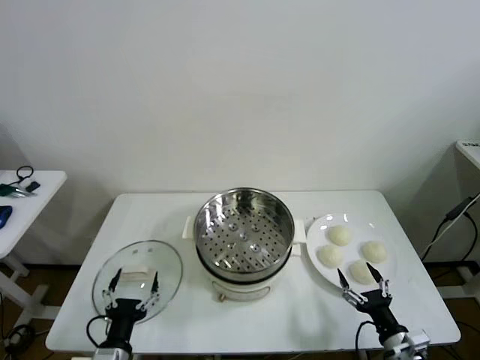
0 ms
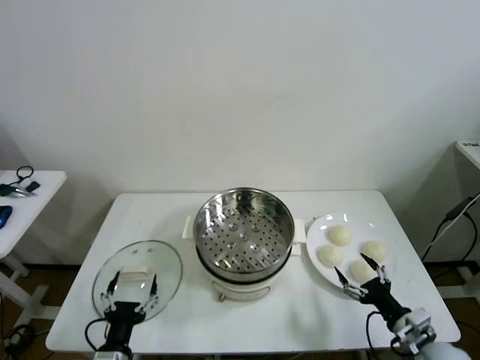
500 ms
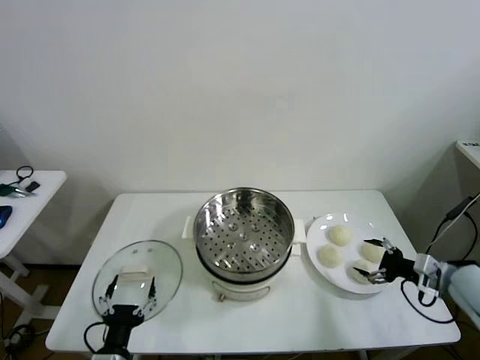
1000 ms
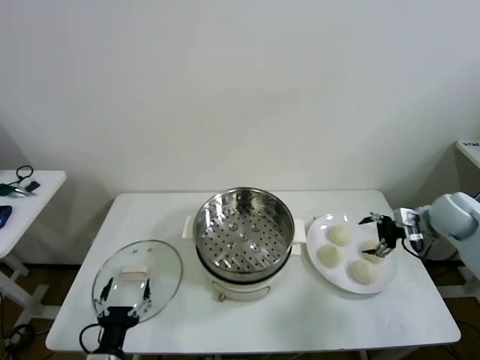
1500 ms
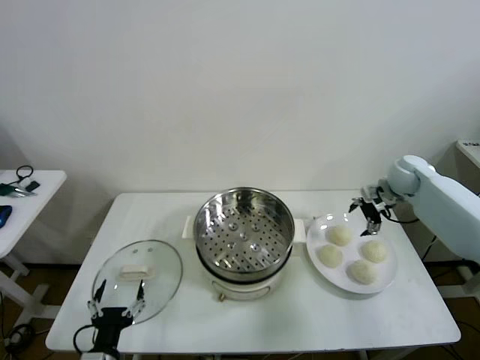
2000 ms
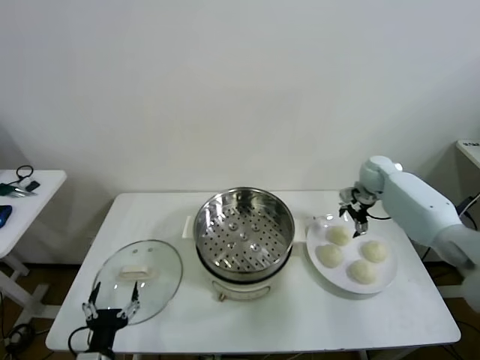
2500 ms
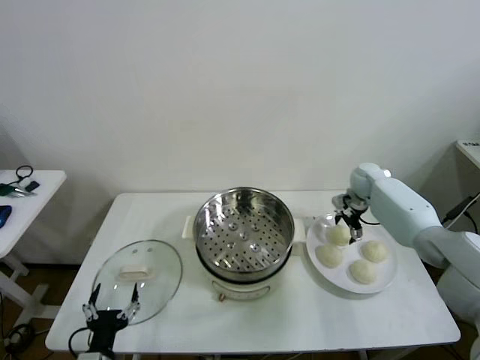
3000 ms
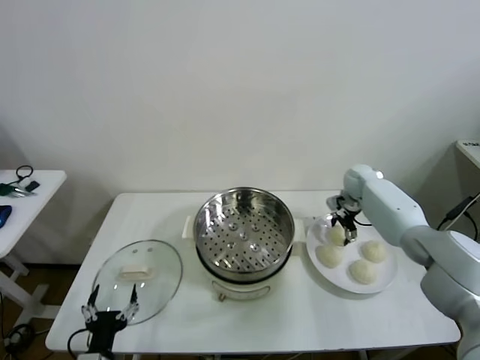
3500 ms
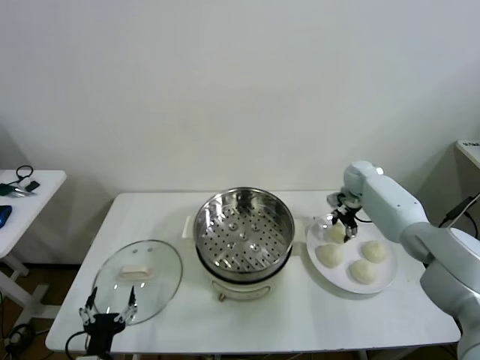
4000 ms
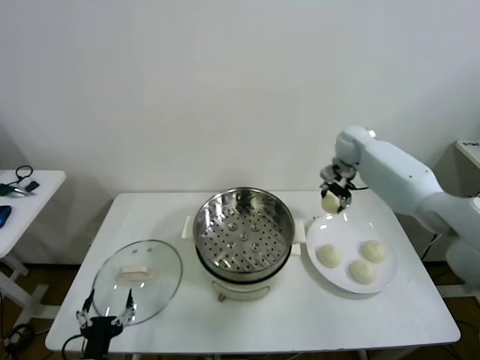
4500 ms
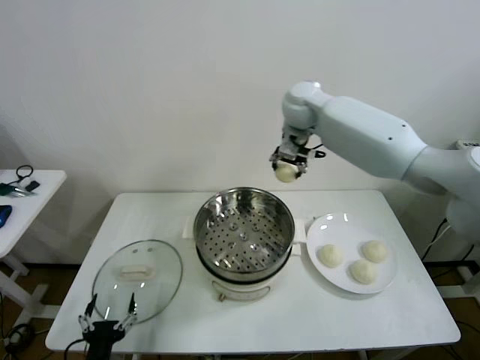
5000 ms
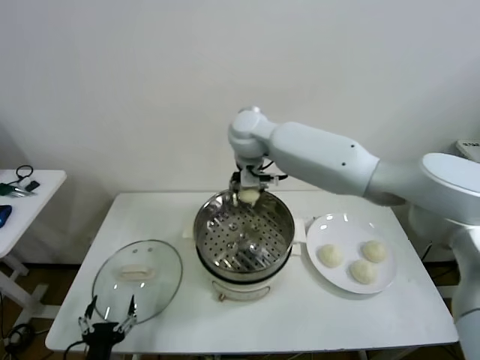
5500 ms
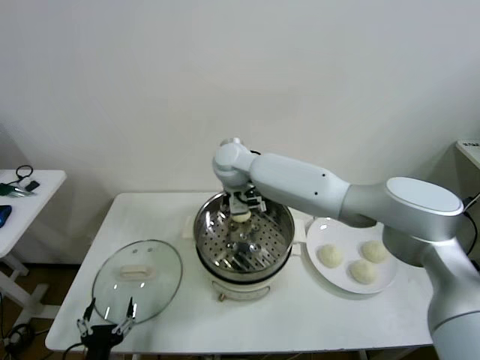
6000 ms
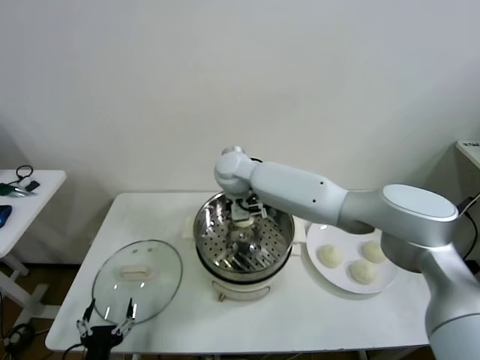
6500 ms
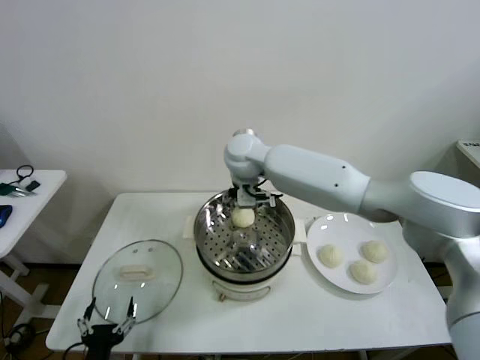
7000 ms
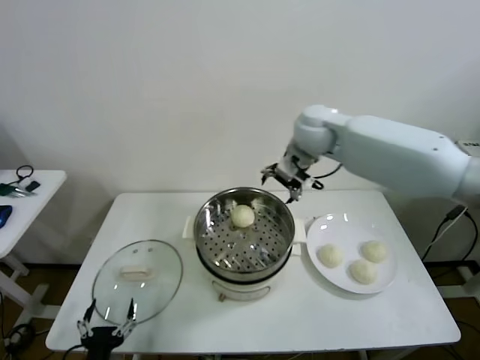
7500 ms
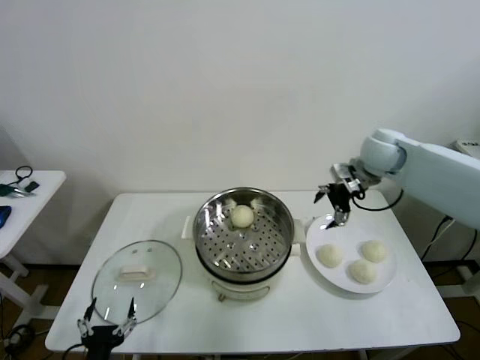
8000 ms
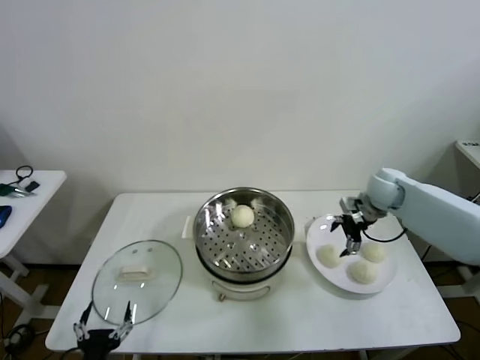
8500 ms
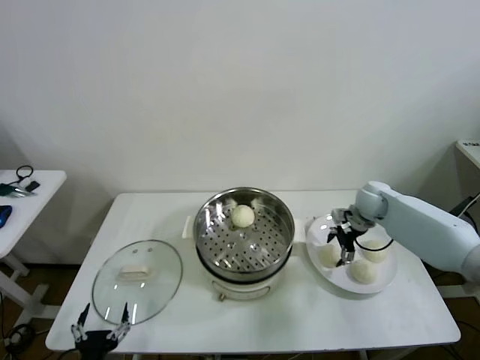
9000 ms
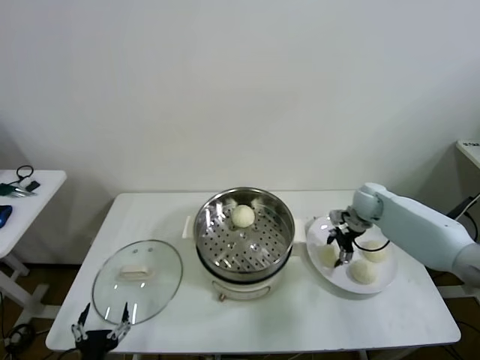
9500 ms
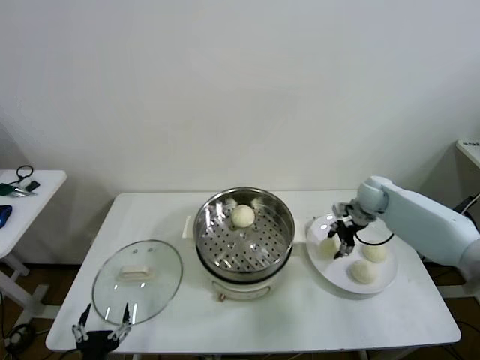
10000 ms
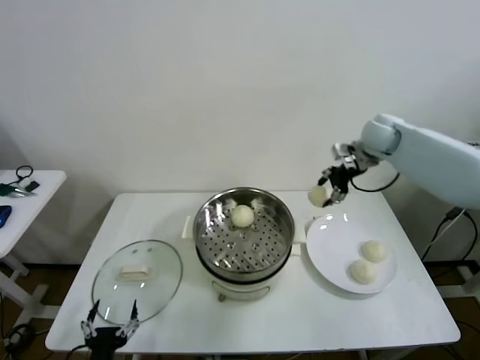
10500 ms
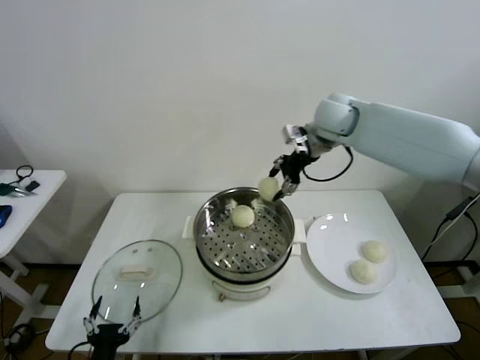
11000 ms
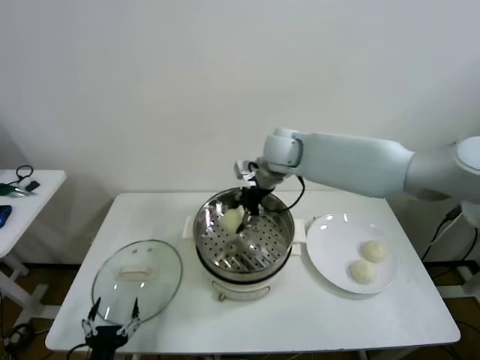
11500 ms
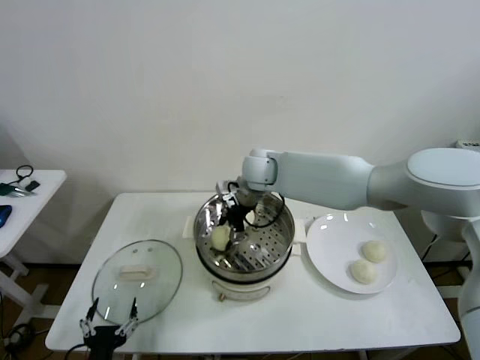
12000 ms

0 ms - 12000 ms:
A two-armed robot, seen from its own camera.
Task of the whole recording: take steamed baozi put them in steamer then cover it.
Step, 0 ms - 3500 ms: Grasp the baozi in the plate with right gripper.
Step, 4000 ms - 6500 ms: Place the baozi on the steamer with right gripper.
Step, 7000 ms - 9000 ms: Grasp the baozi in the plate with right gripper.
2000 ms - 4000 ms: The right gripper moves to the left, forward and downward, roughly 10 cm, and closes up.
4000 ms - 6000 ms: The right gripper moves to the left, roughly 35 cm.
6000 ms - 8000 ms: The right gripper is displaced to the right by about 35 cm, and opens.
8000 ms - 10000 ms: The right gripper is displaced downward by approximately 10 cm, and closes up.
10000 ms - 12000 ms: The right gripper moves to the left, roughly 30 cm, and opens.

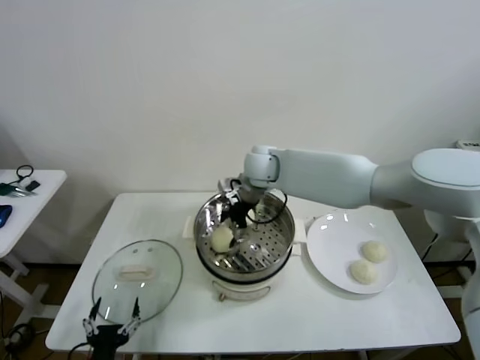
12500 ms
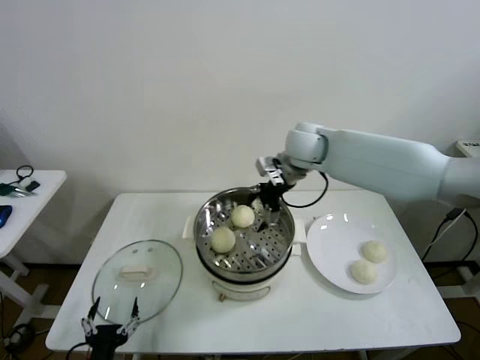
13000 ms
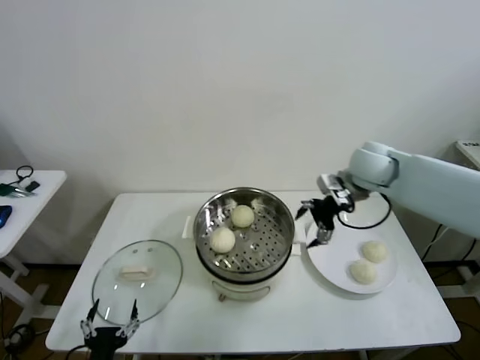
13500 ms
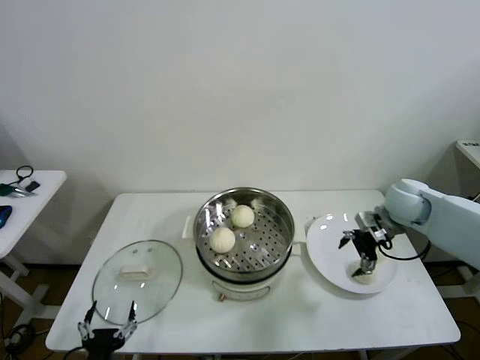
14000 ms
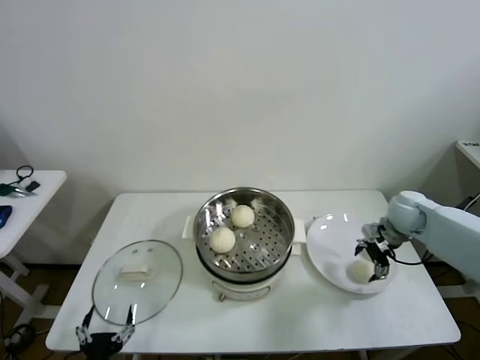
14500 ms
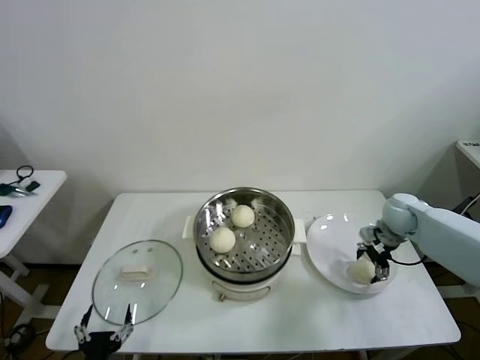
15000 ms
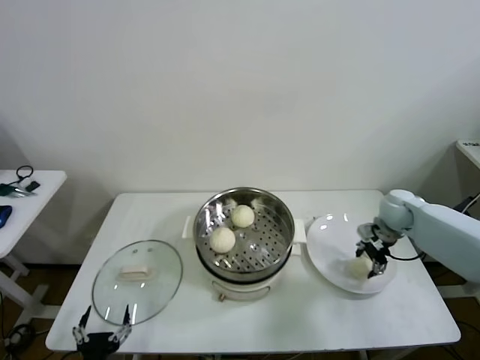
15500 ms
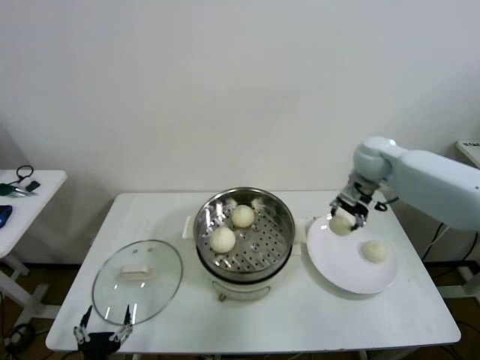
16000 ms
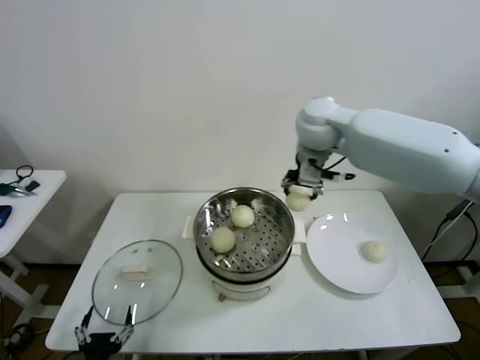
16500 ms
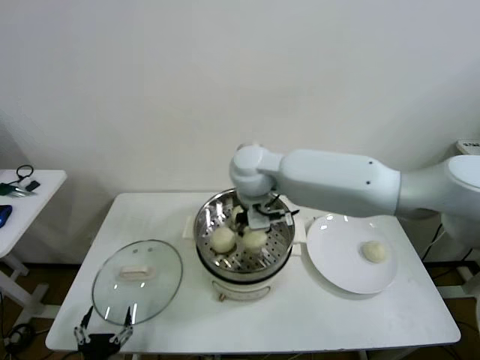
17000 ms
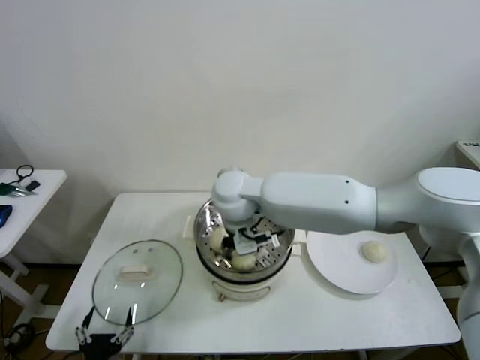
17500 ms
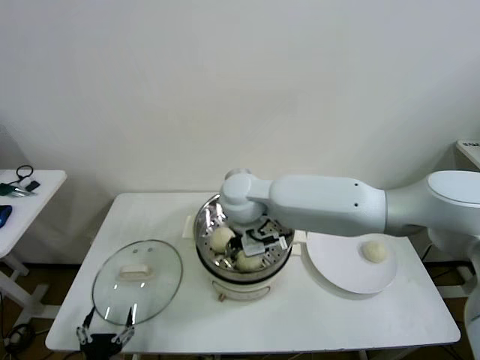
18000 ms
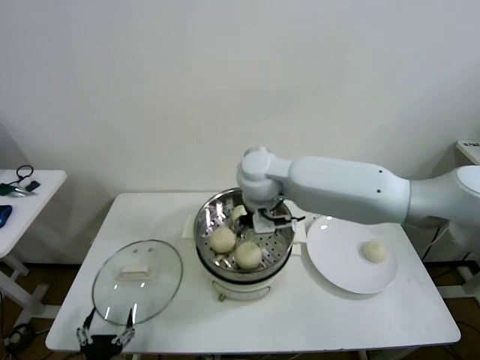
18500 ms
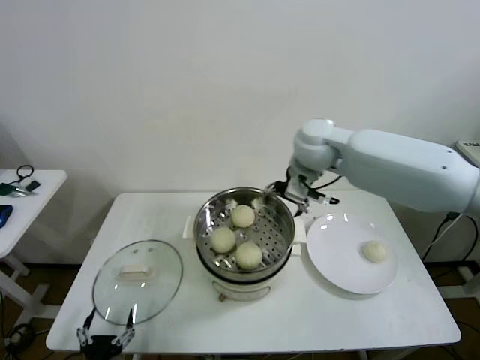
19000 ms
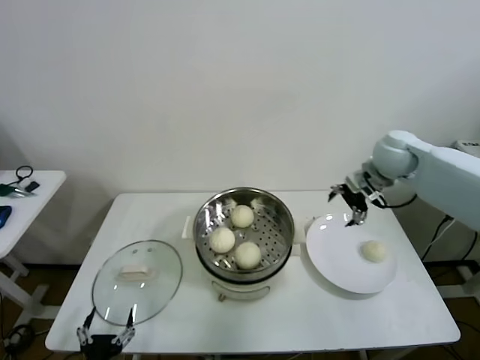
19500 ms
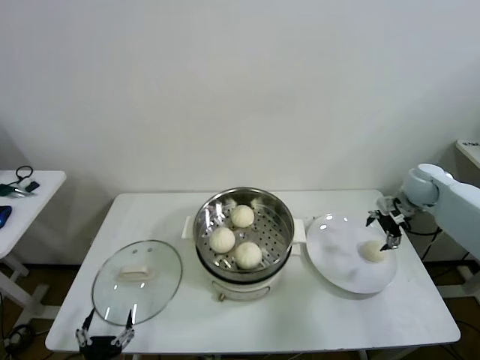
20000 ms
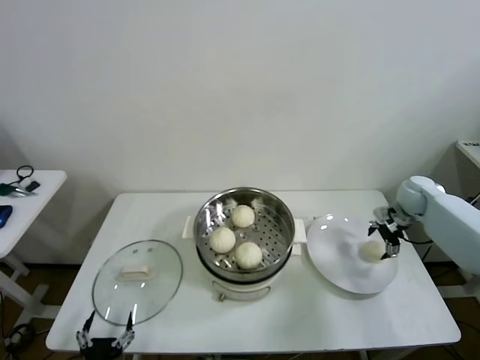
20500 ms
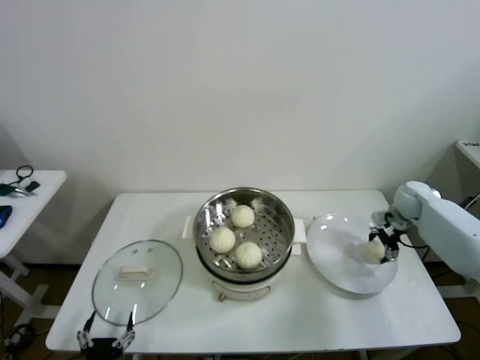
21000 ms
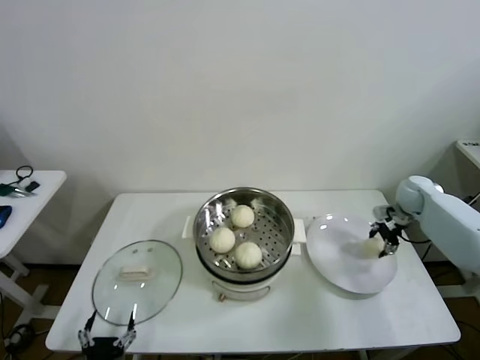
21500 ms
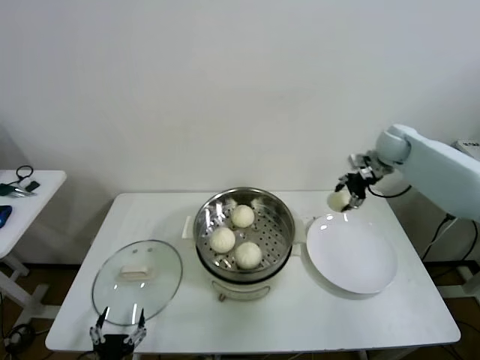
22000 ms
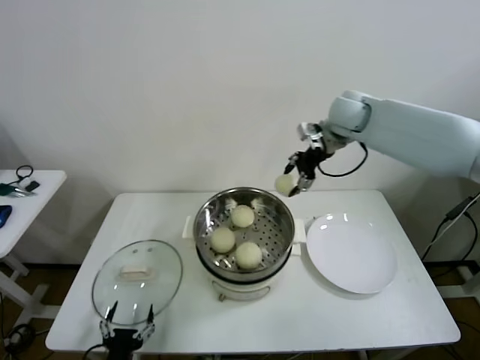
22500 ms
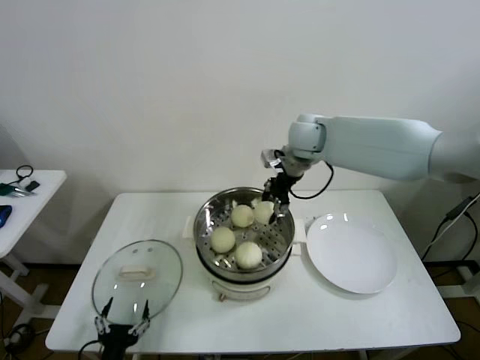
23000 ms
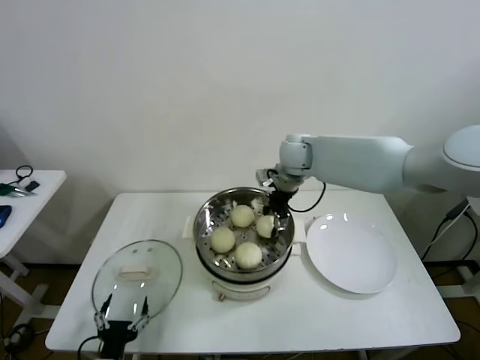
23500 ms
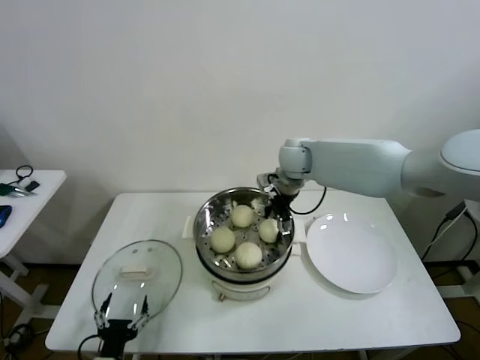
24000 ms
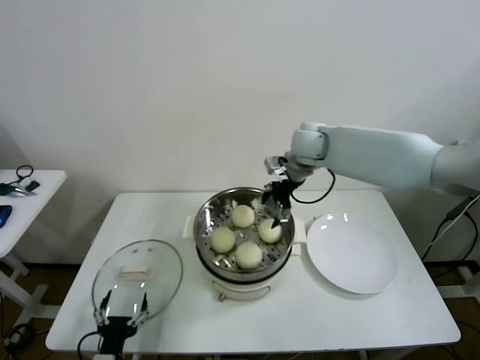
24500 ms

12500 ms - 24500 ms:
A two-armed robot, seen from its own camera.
Task of the whole recording: take steamed baozi put them in steamer then cover it.
Step, 12500 ms - 15000 ms: Grasp the baozi in the plate with right gripper.
Step, 15500 ms - 18000 ms: Place the baozi on the steamer with right gripper.
Step, 18500 ms - 21000 ms: Grasp the baozi in the plate with right gripper.
Step, 21500 ms - 24000 ms: Place the baozi on the steamer with right gripper.
12500 ms - 14500 ms: The right gripper travels to the right by about 35 cm.
14500 ms - 16500 ms: The right gripper travels to the left and upward by roughly 35 cm, and closes.
16500 ms - 18500 ms: The right gripper heads to the left and downward, covering roughly 10 cm, and opens up.
18500 ms - 20500 ms: The right gripper is displaced to the right by roughly 40 cm.
20500 ms - 22500 ms: The right gripper moves to the left and upward, some 30 cm, and closes its fingers.
22500 ms - 24500 ms: The right gripper heads to the left and downward, covering some 10 cm, and opens its fingers.

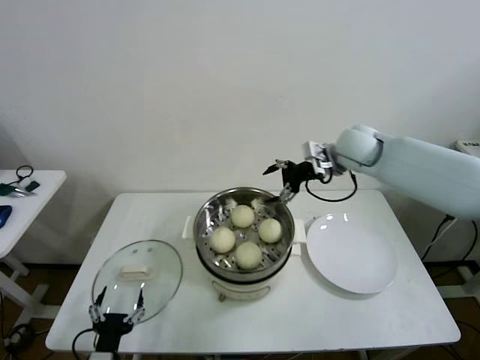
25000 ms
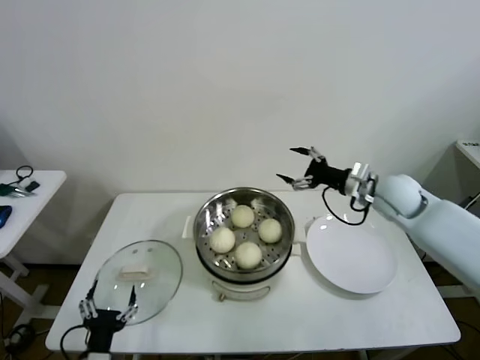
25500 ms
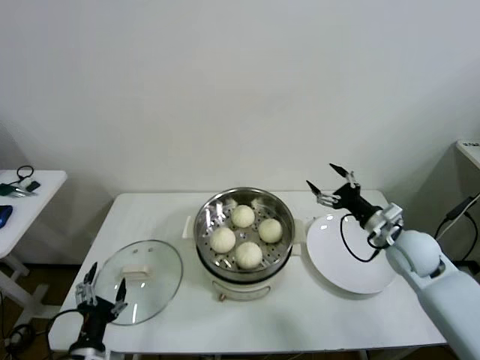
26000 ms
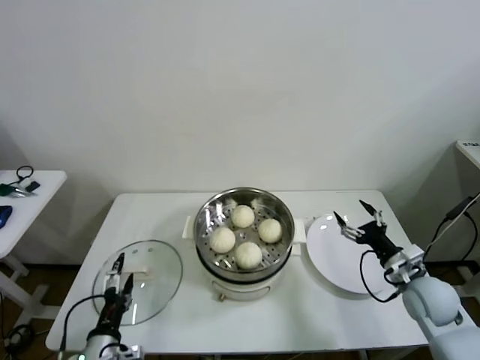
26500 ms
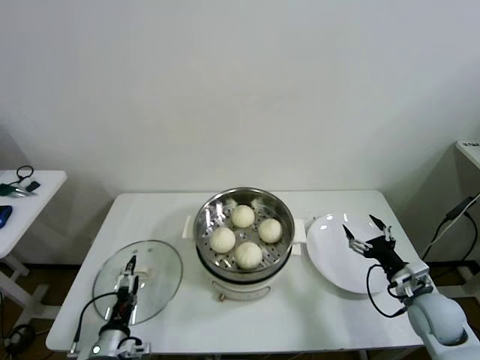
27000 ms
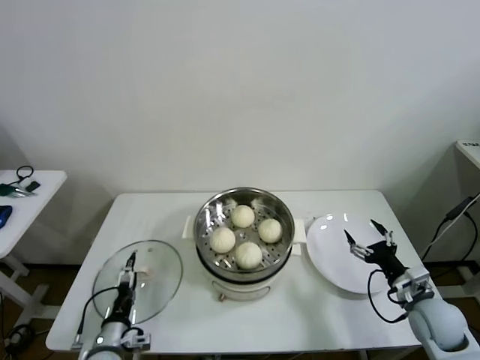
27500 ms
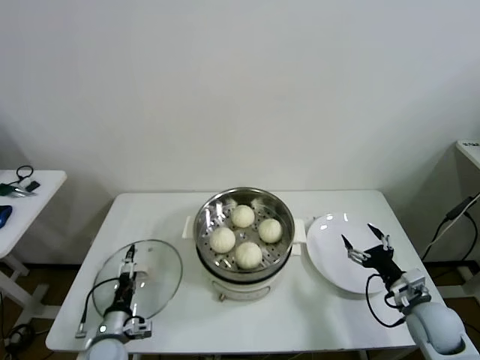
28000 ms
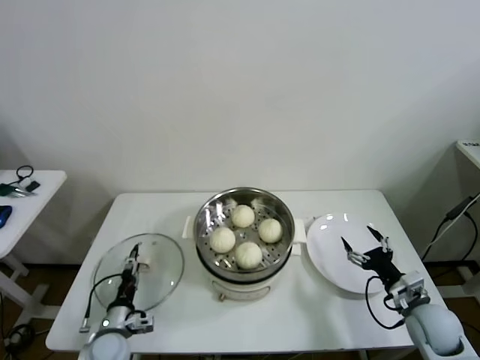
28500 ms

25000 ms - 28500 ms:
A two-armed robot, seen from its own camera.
Task of the whole recording: take steamed baozi put them in steamer then cover it.
25000 ms - 27000 ms: The right gripper goes about 40 cm backward, downward and to the right, while the left gripper is displaced forward by some 5 cm.
27000 ms - 28500 ms: The left gripper shifts roughly 5 cm forward, and closes up.
